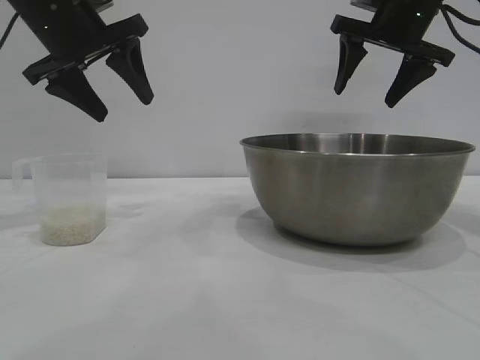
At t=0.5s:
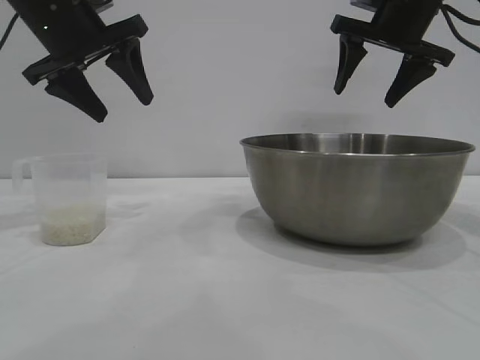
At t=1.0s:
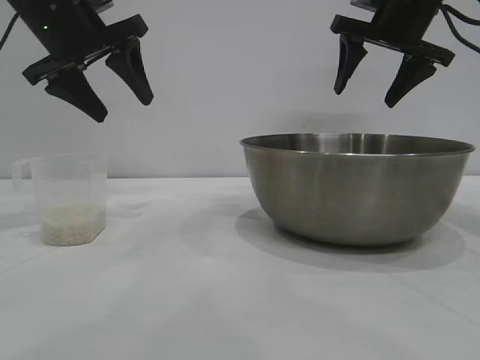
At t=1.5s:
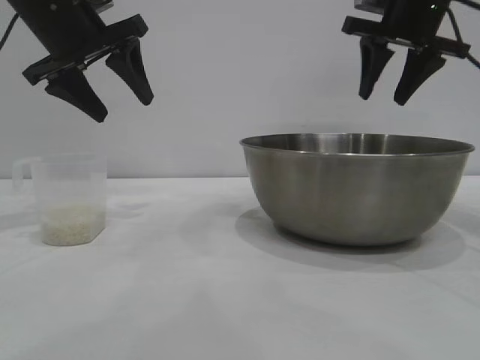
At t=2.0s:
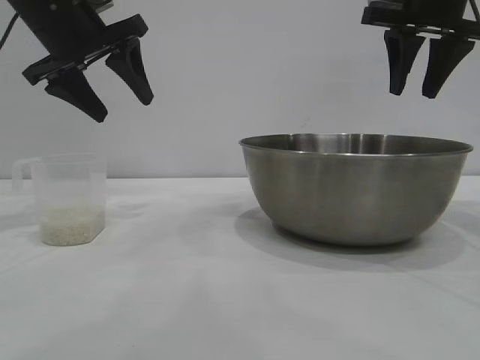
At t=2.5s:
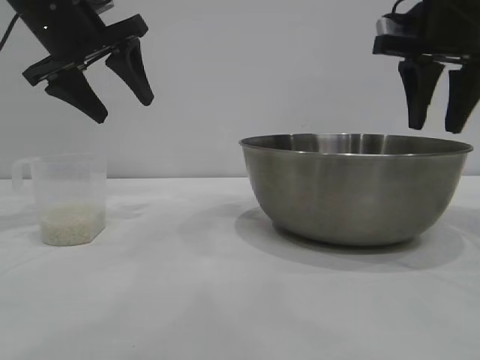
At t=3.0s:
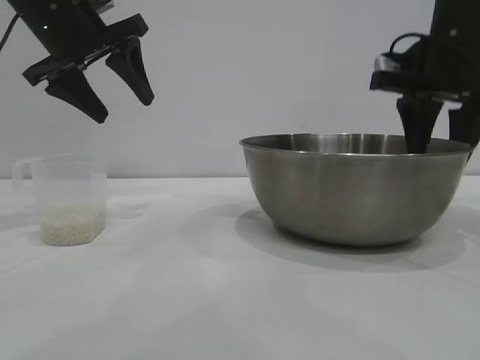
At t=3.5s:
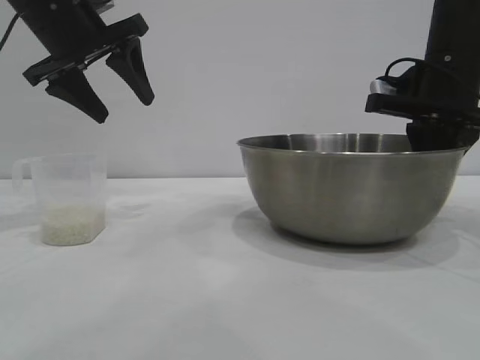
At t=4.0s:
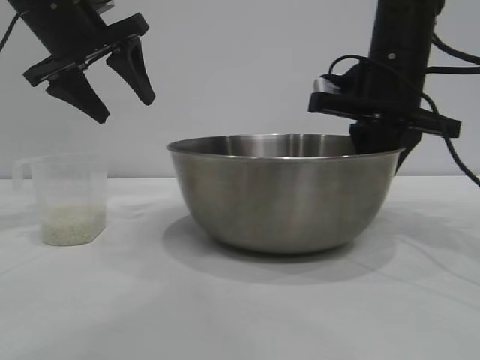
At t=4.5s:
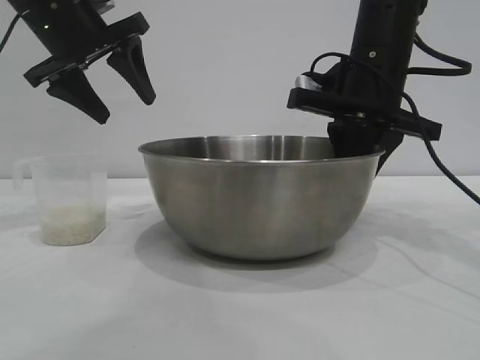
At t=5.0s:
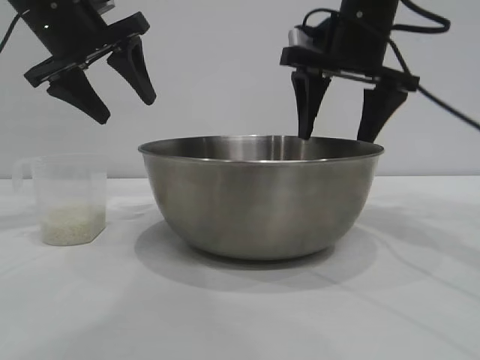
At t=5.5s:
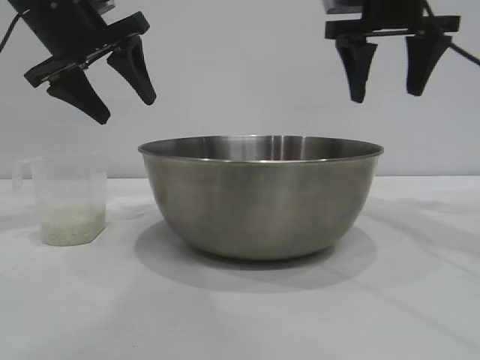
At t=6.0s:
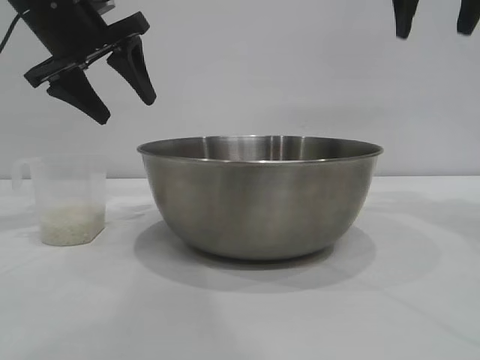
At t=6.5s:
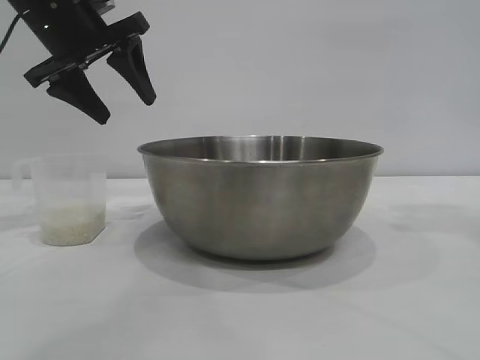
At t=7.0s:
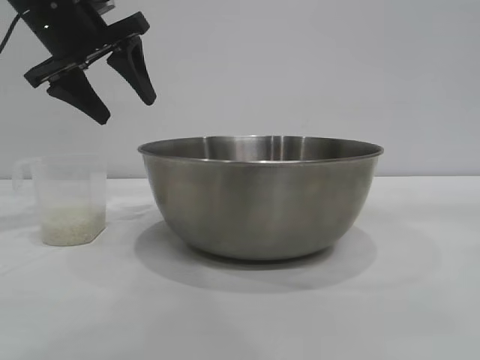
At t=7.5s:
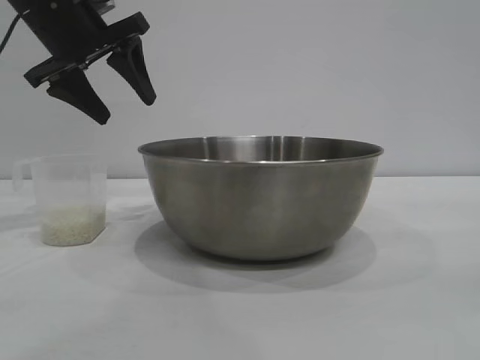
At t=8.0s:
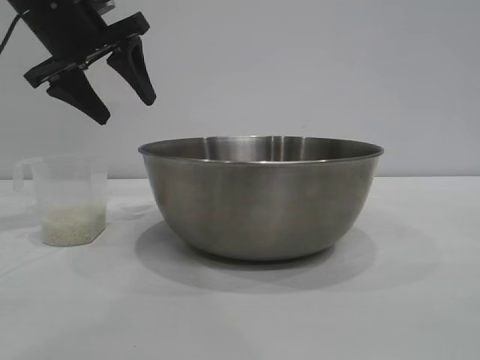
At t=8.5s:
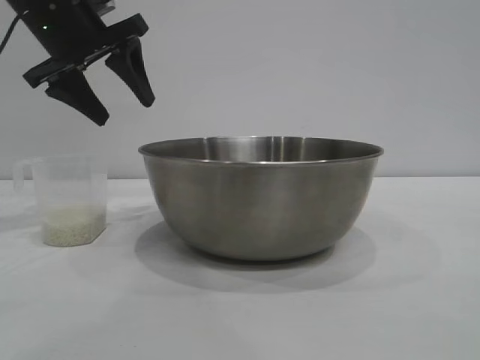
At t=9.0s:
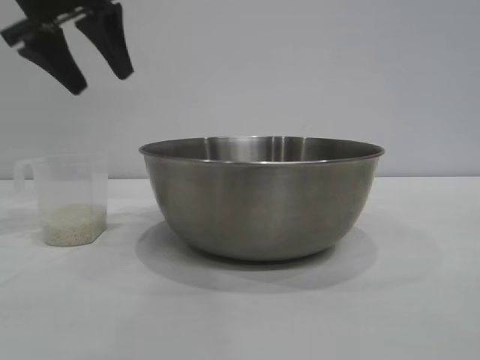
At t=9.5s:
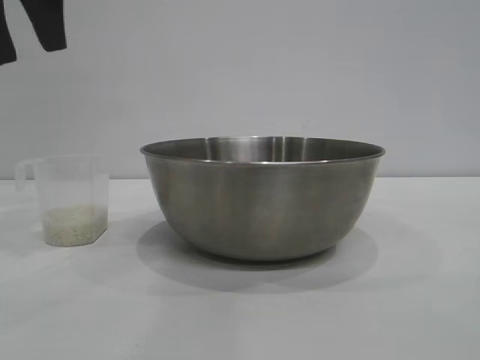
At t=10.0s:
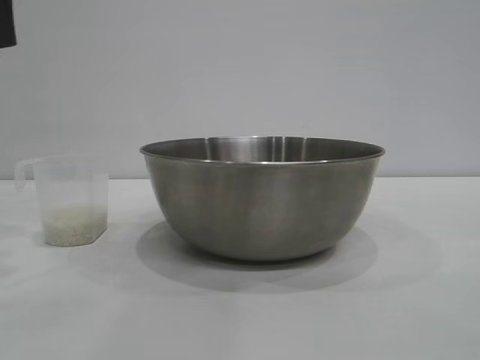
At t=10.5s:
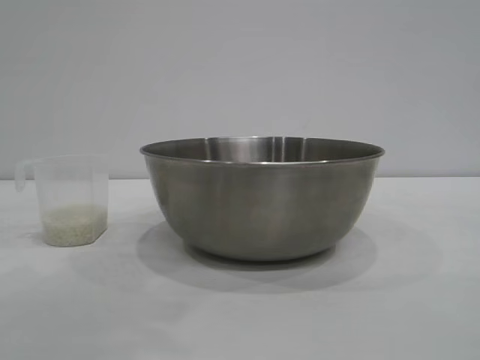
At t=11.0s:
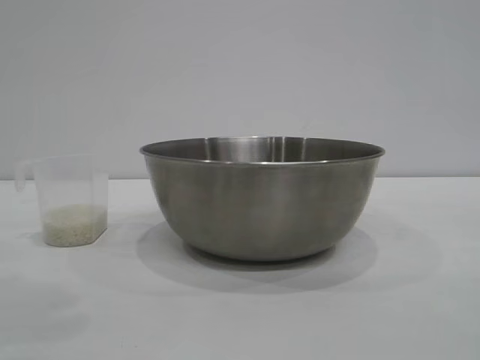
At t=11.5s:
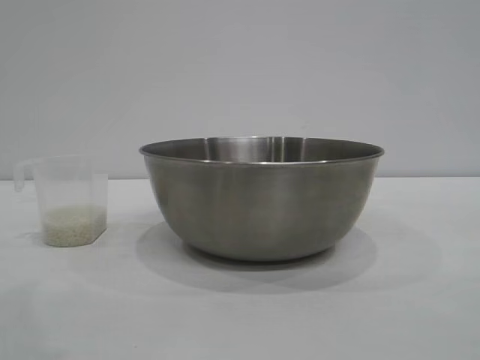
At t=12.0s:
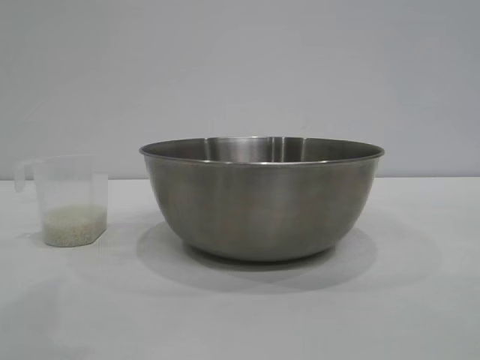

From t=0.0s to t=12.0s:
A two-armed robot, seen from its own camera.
Task of the whole recording: the right gripper grasp the rice container and place it in the center of the table, the left gripper grasp the rice scoop and pour the rice into the rice container.
Step, from t=0.0s to t=4.5s: Move the bowl to the center of view with the right gripper.

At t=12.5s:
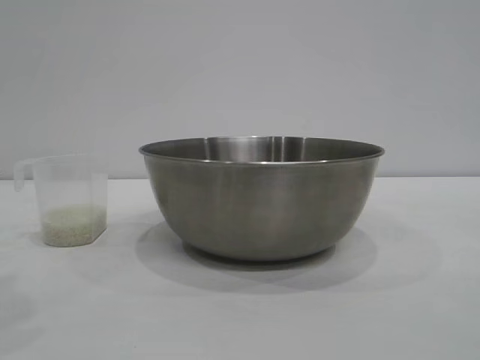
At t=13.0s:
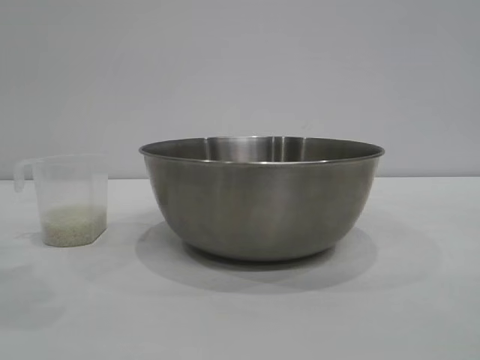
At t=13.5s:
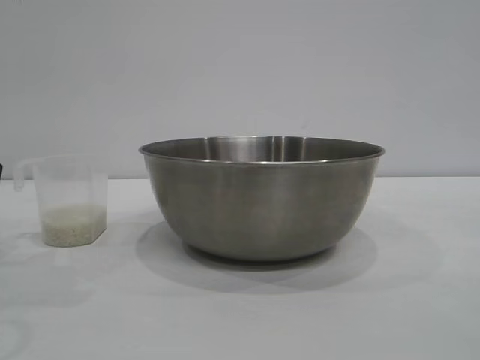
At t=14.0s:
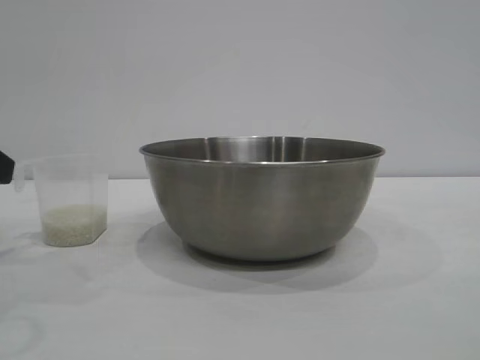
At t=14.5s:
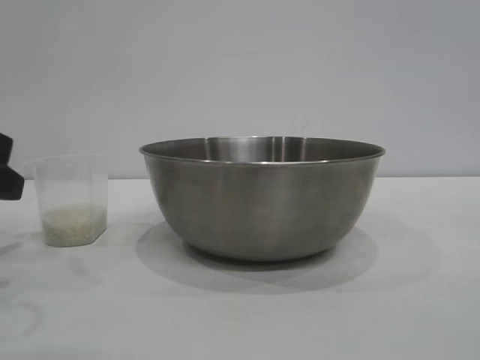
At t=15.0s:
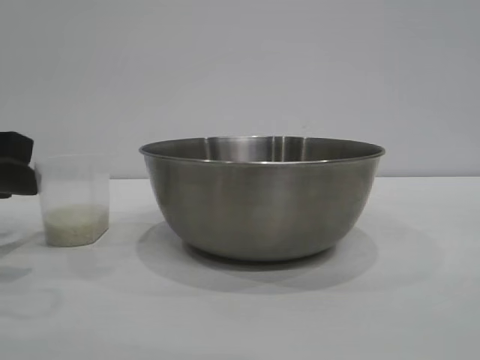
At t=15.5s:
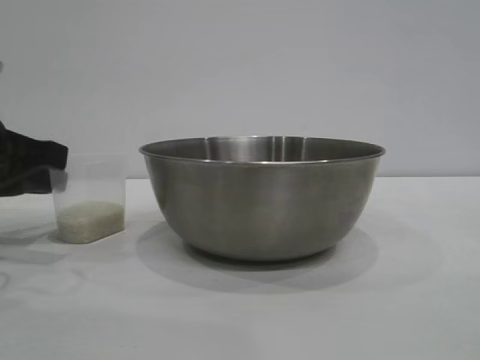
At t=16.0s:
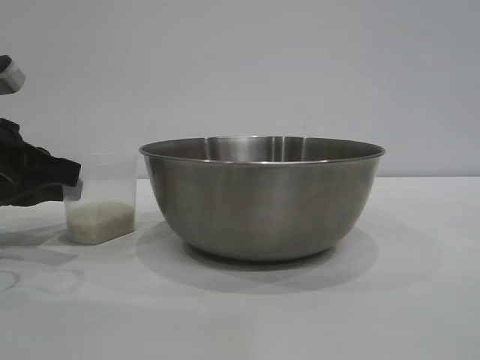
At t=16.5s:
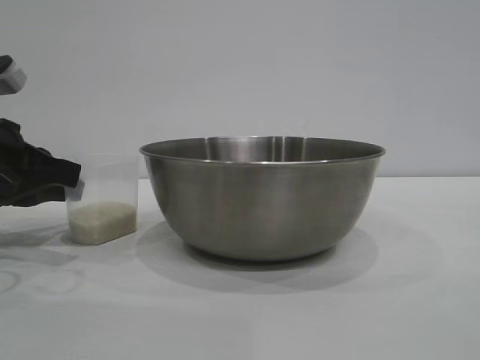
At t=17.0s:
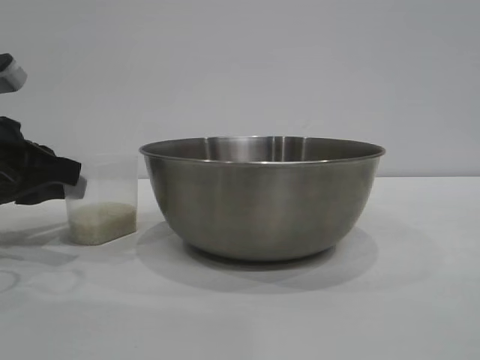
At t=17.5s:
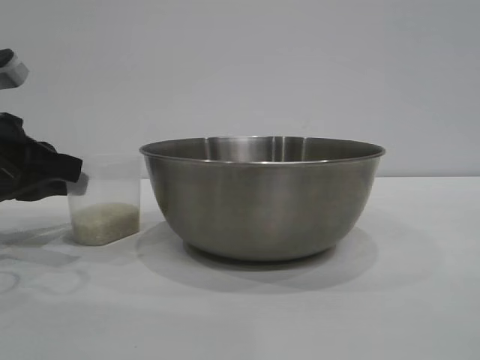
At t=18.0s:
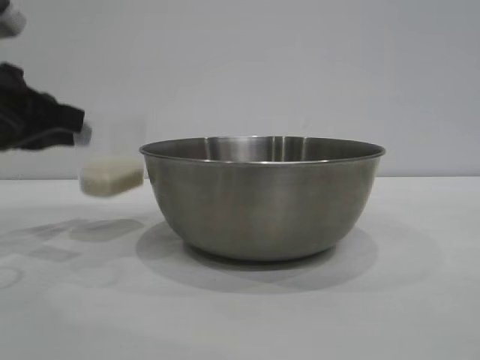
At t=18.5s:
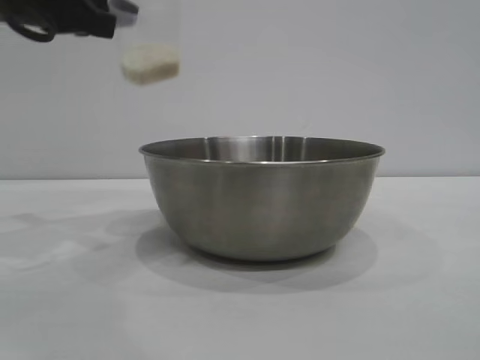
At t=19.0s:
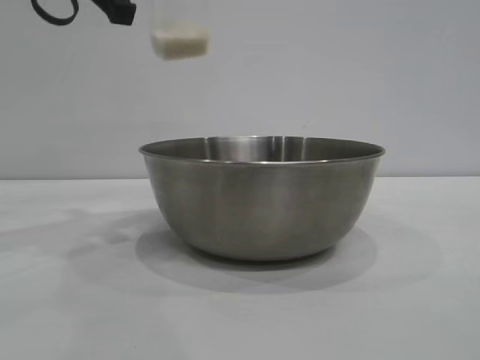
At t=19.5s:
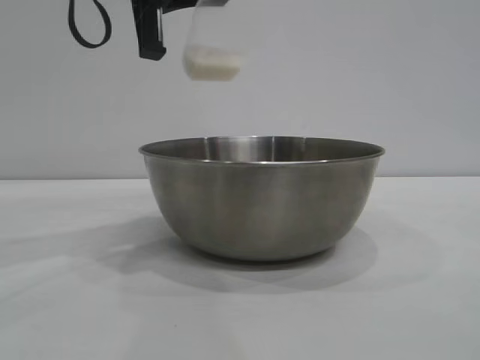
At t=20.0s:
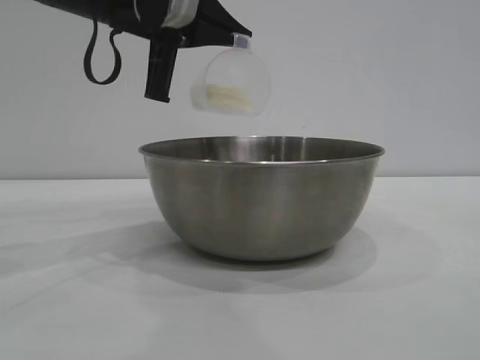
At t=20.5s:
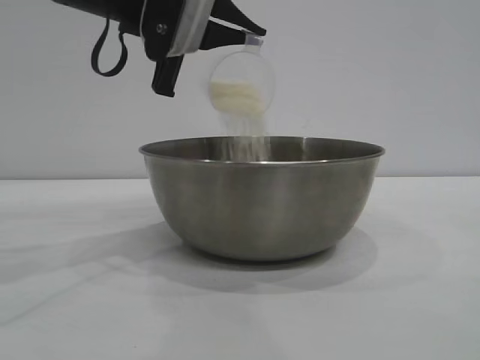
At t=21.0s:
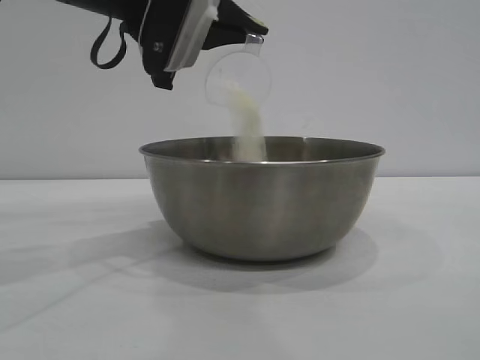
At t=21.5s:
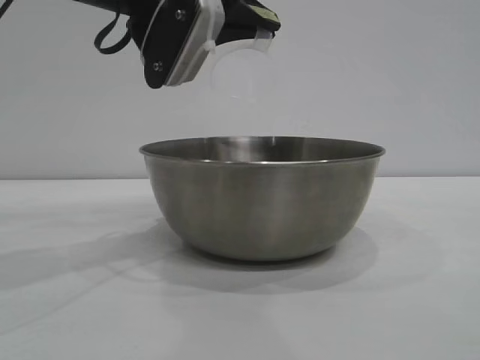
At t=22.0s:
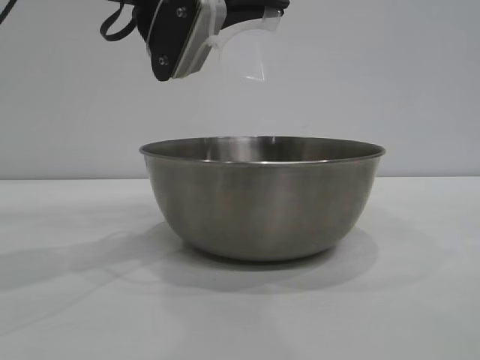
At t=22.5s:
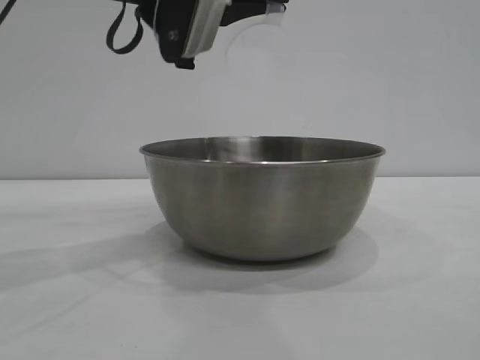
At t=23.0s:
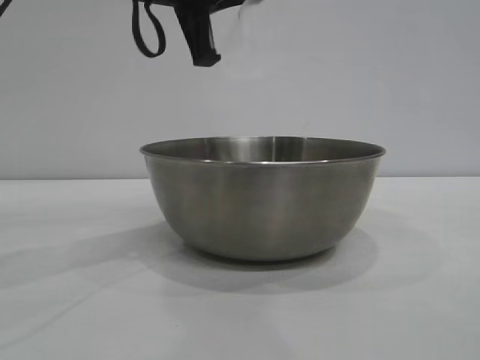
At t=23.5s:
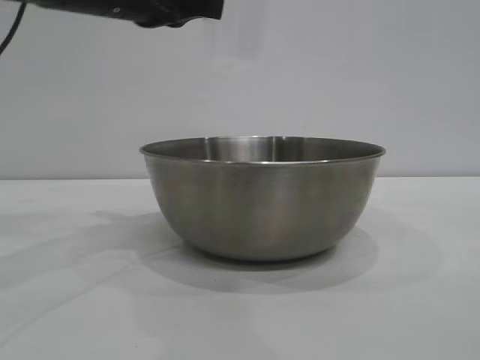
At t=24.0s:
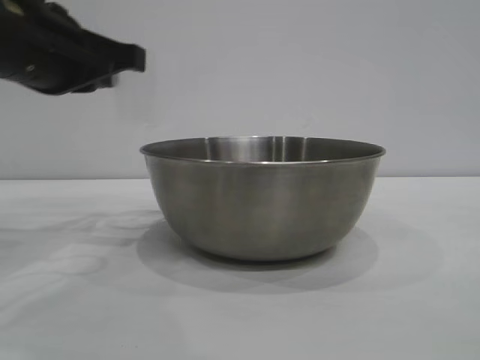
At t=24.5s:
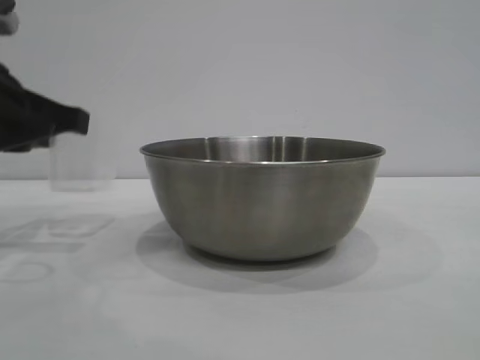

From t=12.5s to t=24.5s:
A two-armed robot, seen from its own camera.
Task of the whole recording: the right gripper grasp the rice container and place it in the center of the table, the left gripper grasp the rice scoop and pour the rice into the rice container.
Step, from t=12.5s to t=18.0s: Pick up the cup with rice in it with the left gripper.
Step, from t=18.5s to t=22.0s: Pour the rice from the cup into the bowl with the left gripper.
